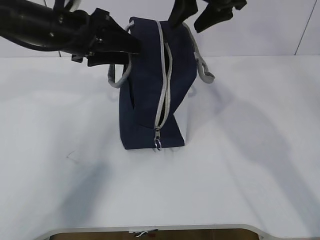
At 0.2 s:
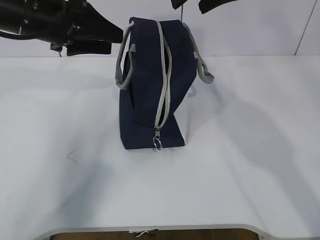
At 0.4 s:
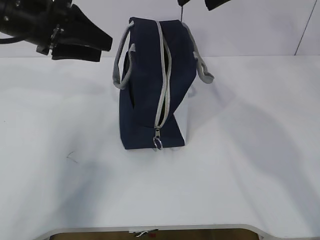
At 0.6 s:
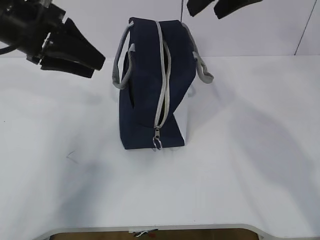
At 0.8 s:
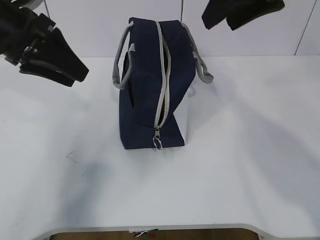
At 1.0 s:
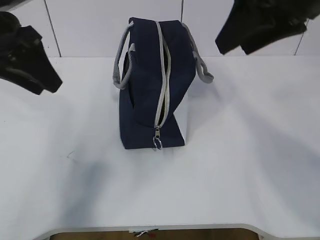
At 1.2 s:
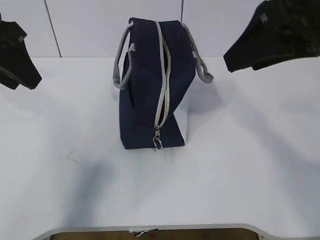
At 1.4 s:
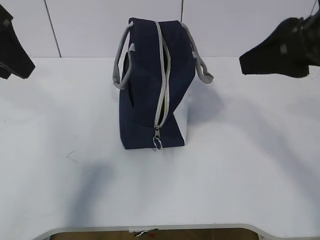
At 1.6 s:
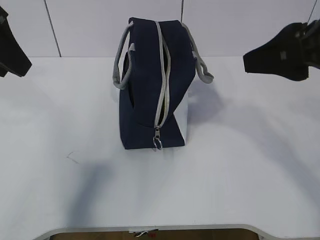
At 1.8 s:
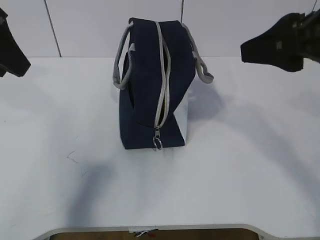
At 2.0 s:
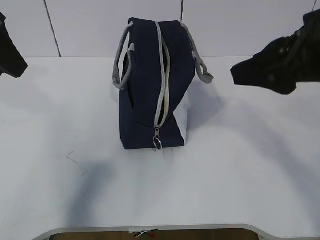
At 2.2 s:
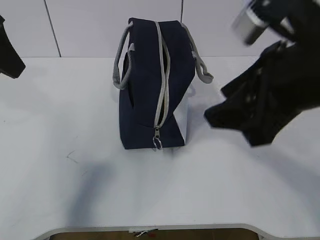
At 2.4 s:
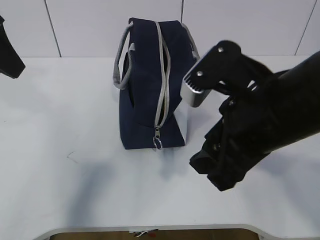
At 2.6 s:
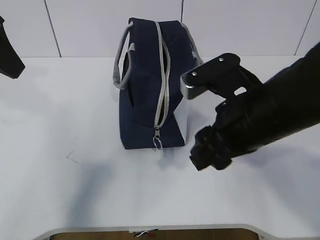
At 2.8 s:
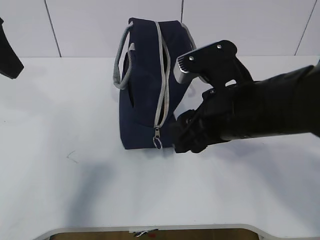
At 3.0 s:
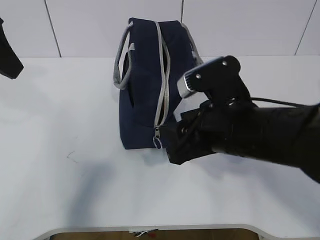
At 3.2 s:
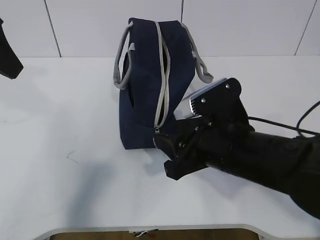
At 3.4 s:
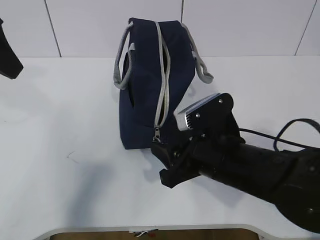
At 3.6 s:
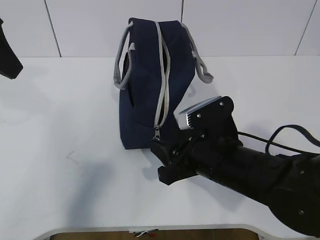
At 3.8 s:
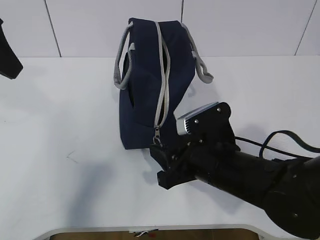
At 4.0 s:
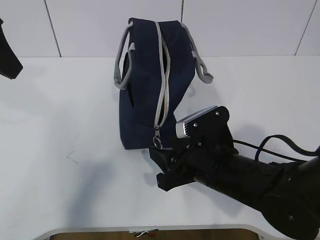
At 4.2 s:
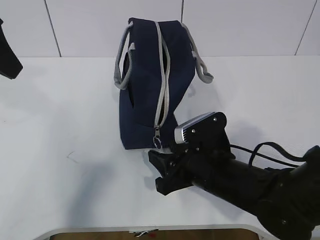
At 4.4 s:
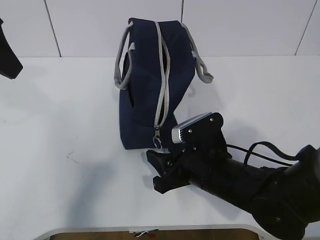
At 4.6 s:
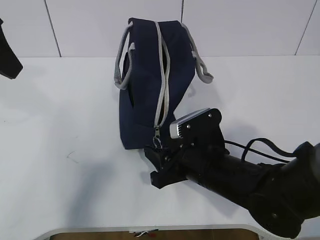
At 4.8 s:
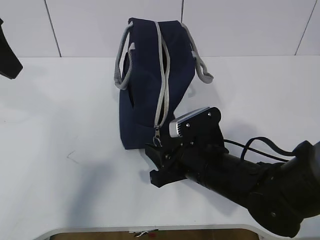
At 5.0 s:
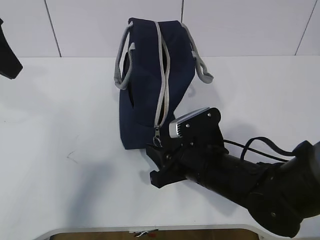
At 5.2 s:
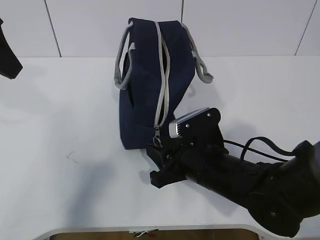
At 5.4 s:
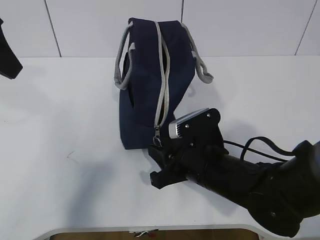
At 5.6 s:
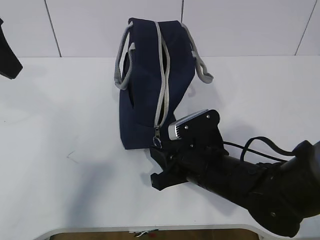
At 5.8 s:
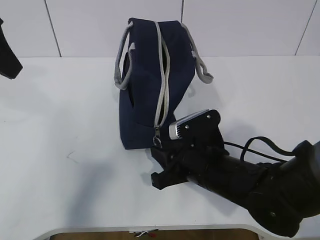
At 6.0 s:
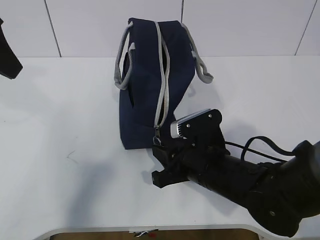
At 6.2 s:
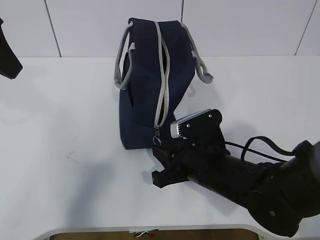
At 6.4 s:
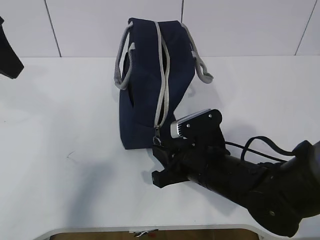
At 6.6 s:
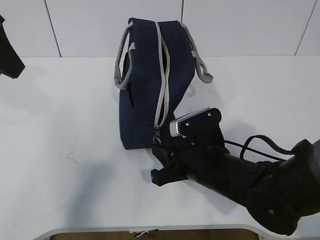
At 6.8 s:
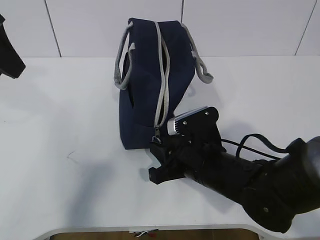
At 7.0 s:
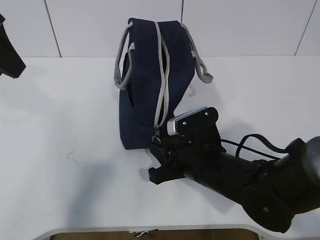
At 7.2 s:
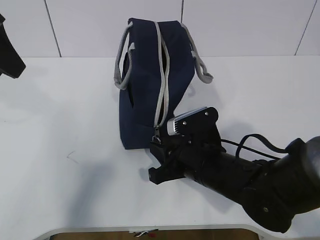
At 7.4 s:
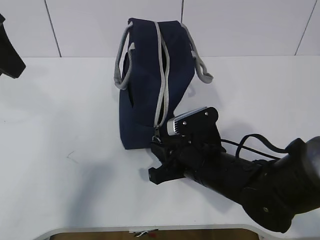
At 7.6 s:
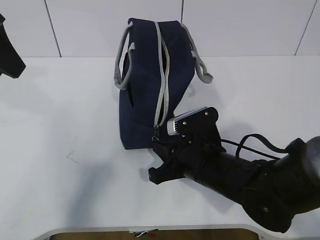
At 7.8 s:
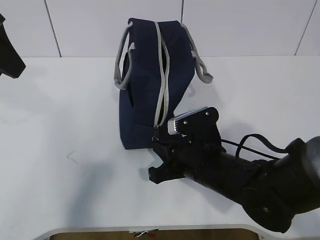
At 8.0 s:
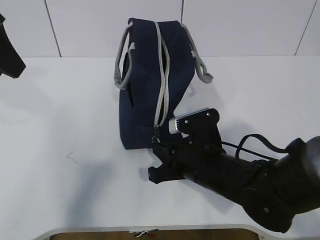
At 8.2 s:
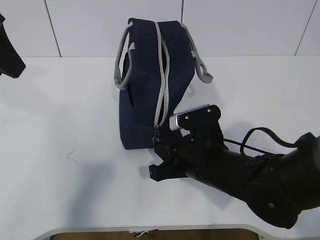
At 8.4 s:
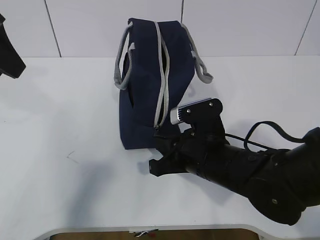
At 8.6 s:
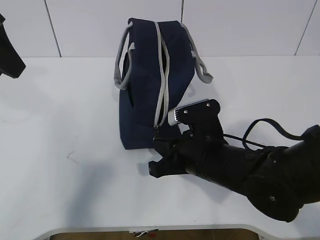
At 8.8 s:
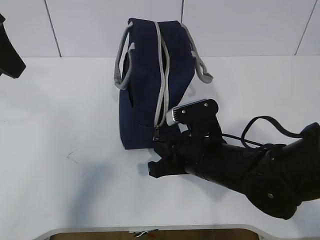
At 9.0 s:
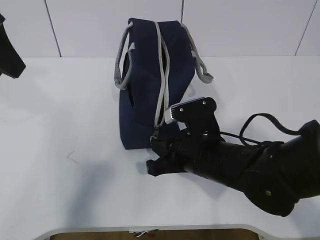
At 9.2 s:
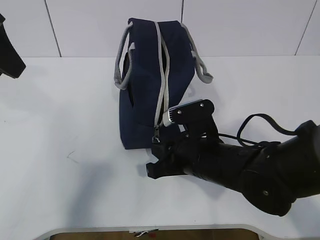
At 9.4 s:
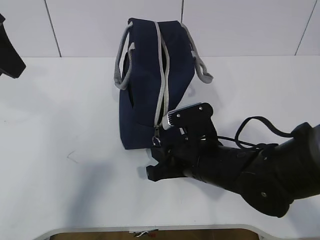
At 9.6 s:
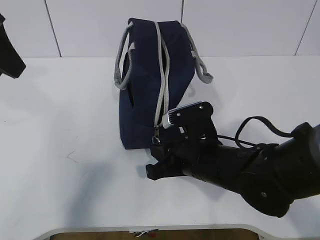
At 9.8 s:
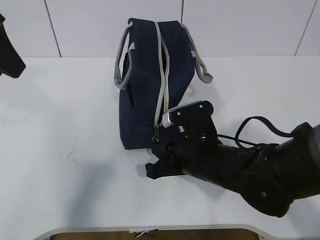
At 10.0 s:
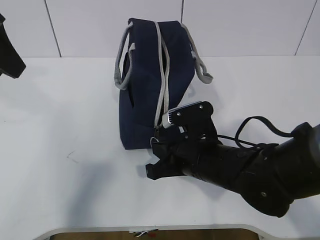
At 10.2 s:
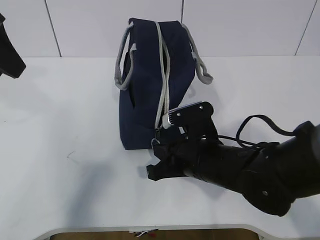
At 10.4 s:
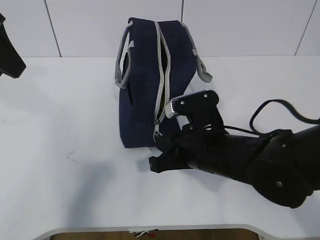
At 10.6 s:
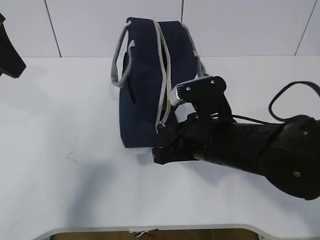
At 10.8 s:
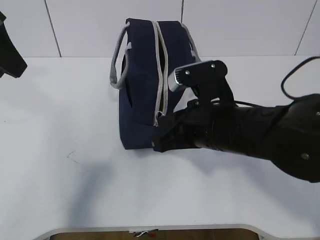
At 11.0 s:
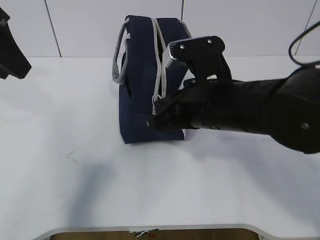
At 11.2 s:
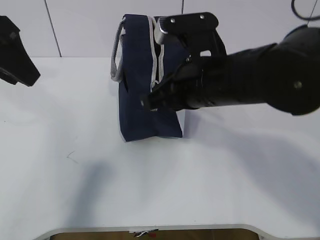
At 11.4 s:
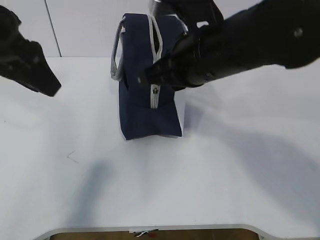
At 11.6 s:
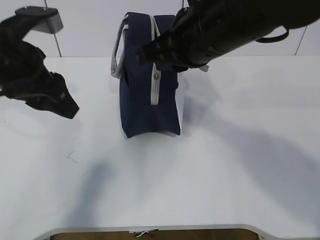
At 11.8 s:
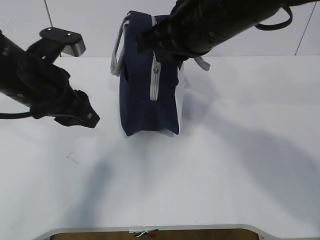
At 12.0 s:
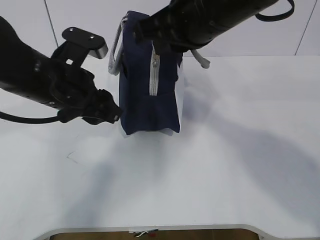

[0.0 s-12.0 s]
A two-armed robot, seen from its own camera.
Step, 0.0 to 4.2 s: Grab the lunch bag with your left hand.
Step, 4.4 to 10.4 s: Pull the zipper with your right hand.
0.0 to 1.6 s: The left gripper heads backward, upward and to the left, covering some 15 cm. Meanwhile the right gripper heads backward, covering some 20 cm.
1.6 to 3.0 s: The right gripper heads downward and to the left, covering approximately 15 cm.
3.0 to 4.4 s: The right gripper is displaced downward by about 10 cm.
4.4 to 6.0 s: The right gripper closes up.
6.0 to 7.6 s: Both grippers stay put.
7.6 to 9.0 s: The grippers make only small movements.
9.0 to 10.4 s: Both grippers stay put.
10.4 to 12.0 s: The left gripper moves downward and to the right, some 15 cm. Meanwhile the right gripper is displaced upward by roughly 20 cm.

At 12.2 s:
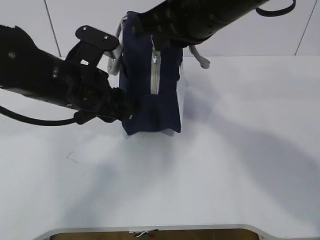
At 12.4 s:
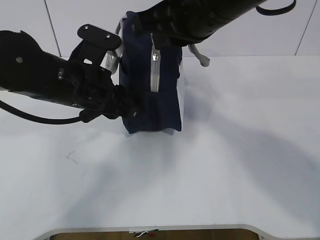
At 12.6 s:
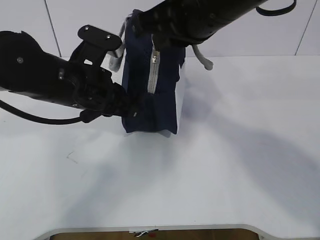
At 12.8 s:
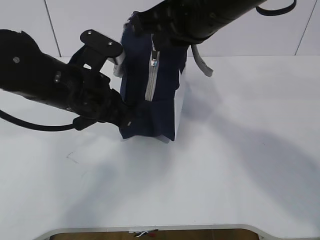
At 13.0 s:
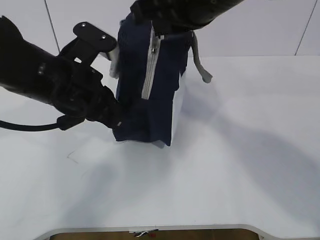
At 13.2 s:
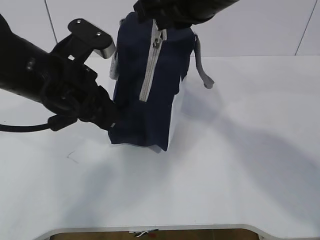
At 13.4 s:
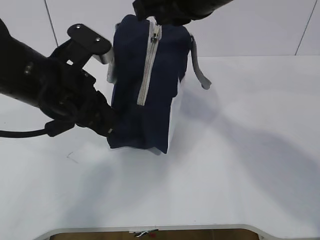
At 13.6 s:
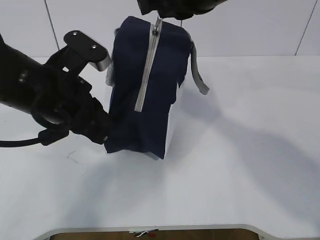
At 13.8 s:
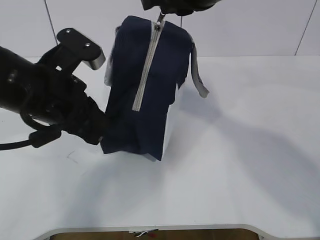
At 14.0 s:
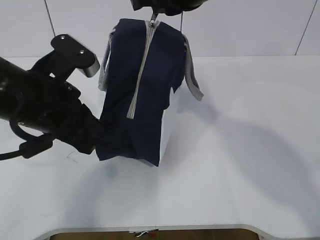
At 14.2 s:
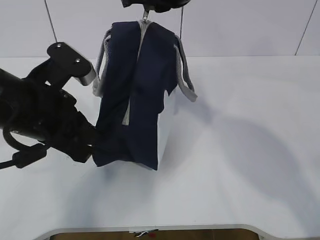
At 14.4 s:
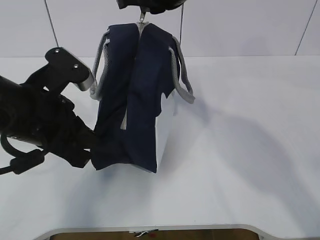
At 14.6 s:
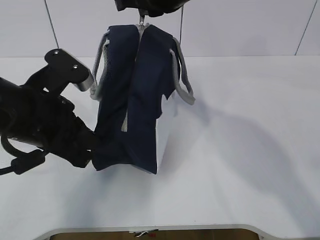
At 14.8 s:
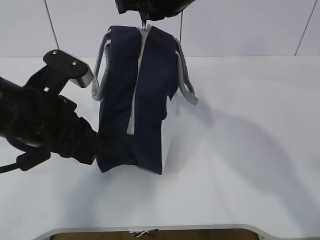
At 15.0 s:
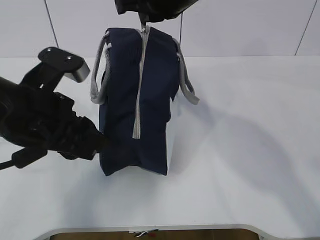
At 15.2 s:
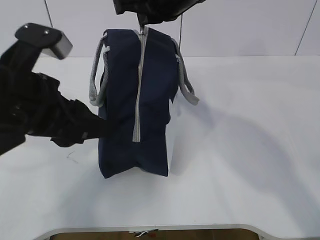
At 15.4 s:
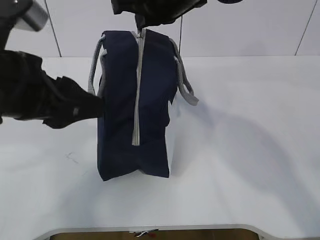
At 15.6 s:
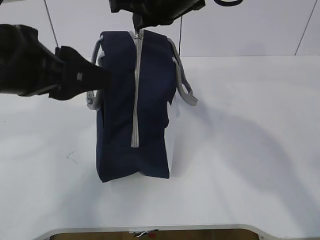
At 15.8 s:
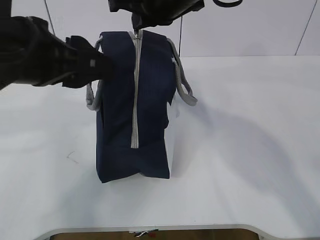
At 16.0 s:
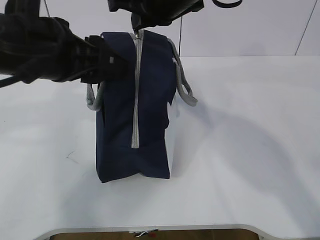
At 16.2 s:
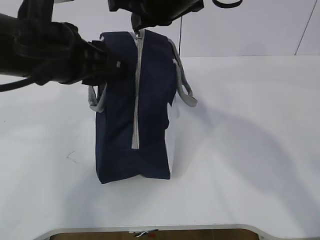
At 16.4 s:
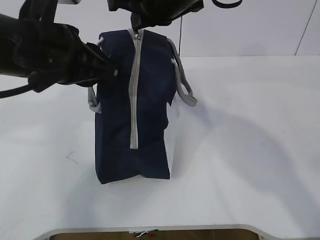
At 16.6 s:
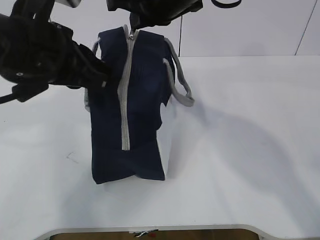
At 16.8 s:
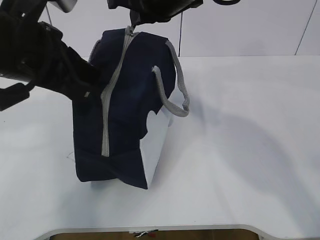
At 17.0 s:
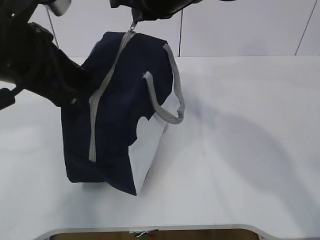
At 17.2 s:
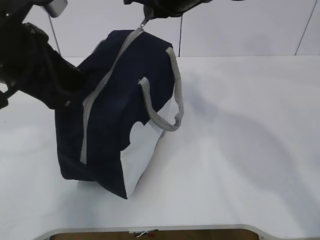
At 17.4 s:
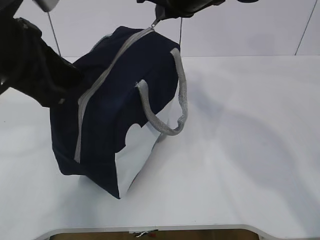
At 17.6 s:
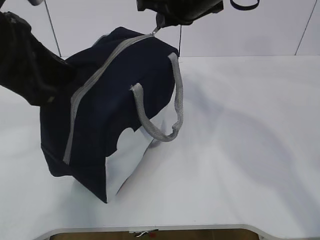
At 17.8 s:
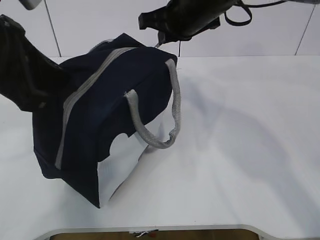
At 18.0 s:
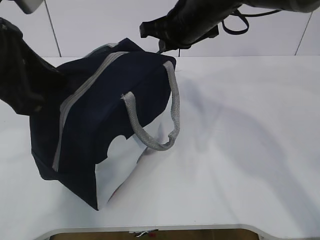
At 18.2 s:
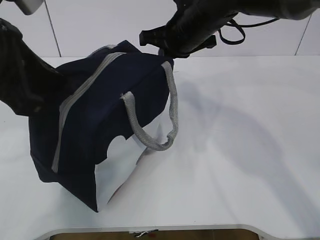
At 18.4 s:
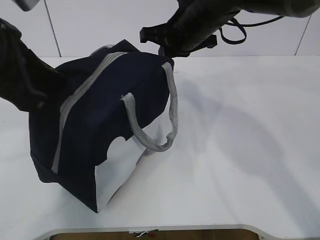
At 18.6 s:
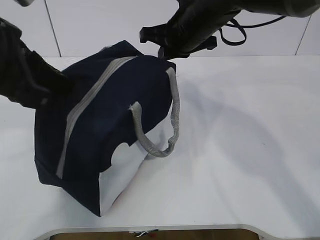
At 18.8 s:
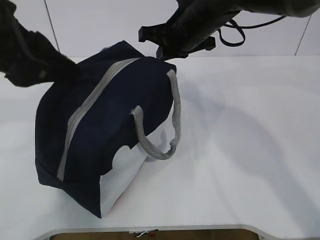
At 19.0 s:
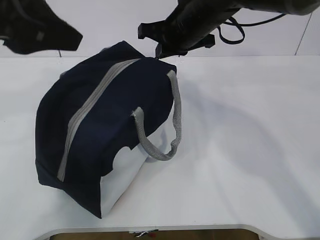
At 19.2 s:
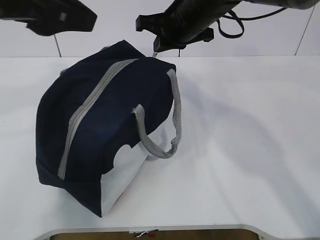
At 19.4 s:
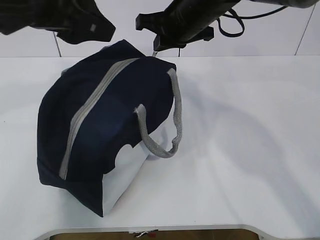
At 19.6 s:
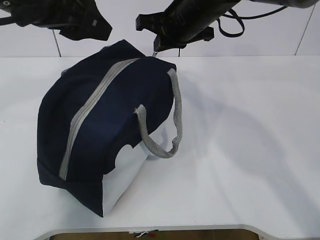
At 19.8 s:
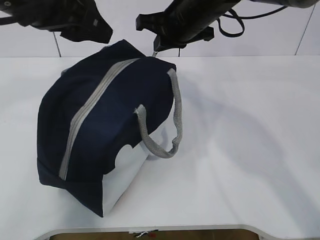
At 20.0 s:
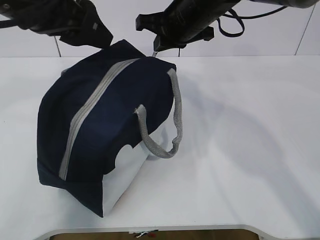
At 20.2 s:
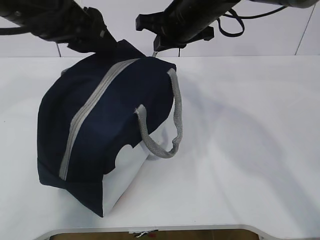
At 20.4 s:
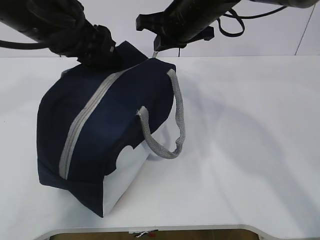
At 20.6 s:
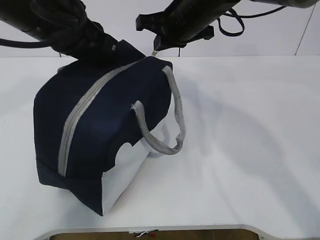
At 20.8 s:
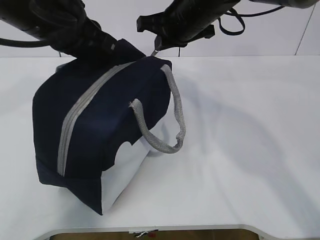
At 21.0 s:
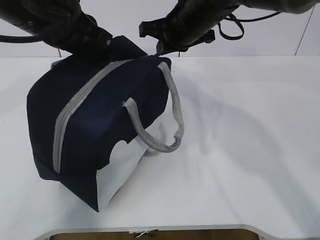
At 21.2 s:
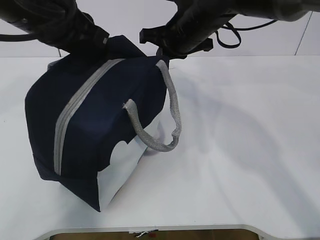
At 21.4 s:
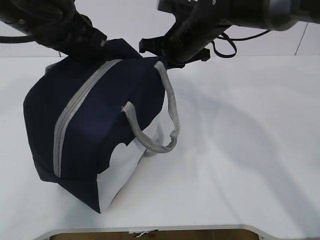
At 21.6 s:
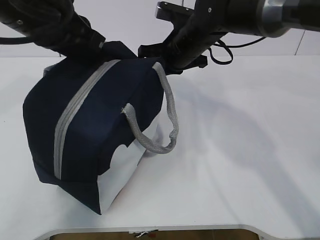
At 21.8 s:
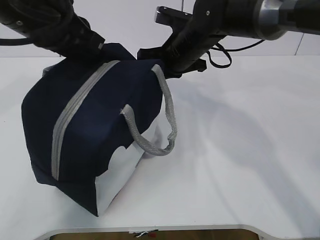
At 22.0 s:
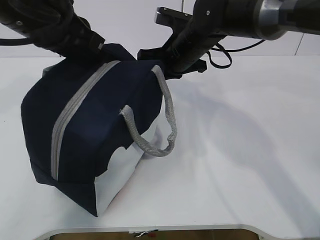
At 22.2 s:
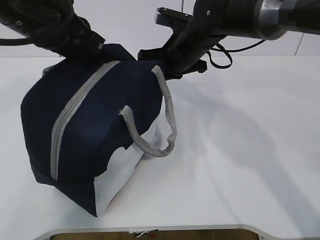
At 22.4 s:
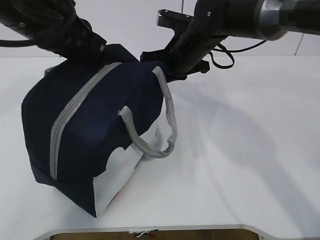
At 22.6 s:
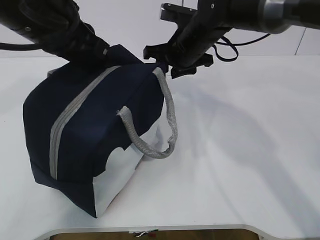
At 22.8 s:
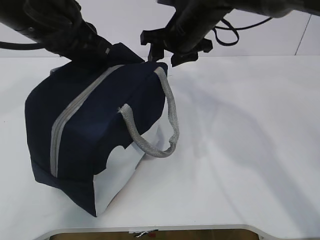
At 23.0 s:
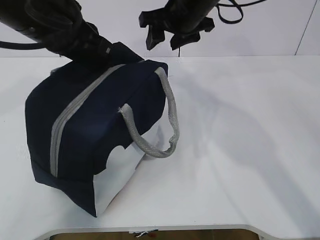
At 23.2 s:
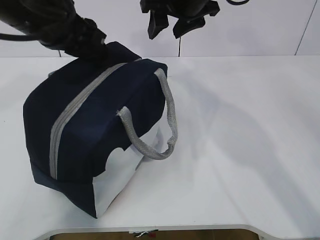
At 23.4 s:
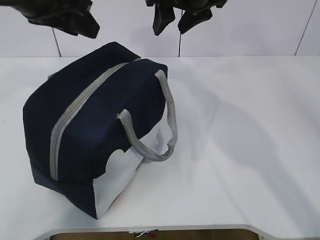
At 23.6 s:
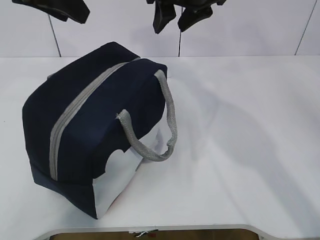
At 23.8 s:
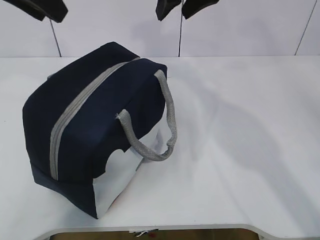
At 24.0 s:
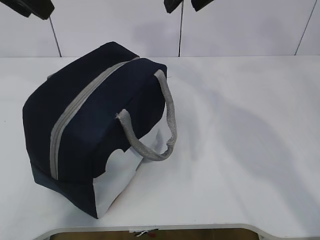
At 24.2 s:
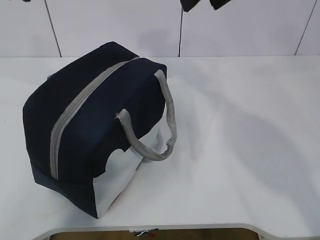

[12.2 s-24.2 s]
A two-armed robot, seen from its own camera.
12.2 to 13.8 s: The left gripper closes its fingers.
13.8 to 15.2 s: The left gripper opens its fingers, while the right gripper travels forward by some 5 cm.
15.2 to 16.6 s: The left gripper shifts by roughly 5 cm, and closes up.
16.6 to 18.2 s: The right gripper moves downward and forward, roughly 10 cm, while the left gripper shifts by some 5 cm.
18.2 to 19.8 s: The left gripper is displaced forward by roughly 5 cm, and opens its fingers.
19.8 to 21.2 s: The left gripper closes up.
21.2 to 22.6 s: The right gripper opens its fingers.
22.6 to 24.2 s: The left gripper heads upward and to the left, covering some 15 cm, and opens up, while the right gripper shifts about 20 cm upward and backward.
